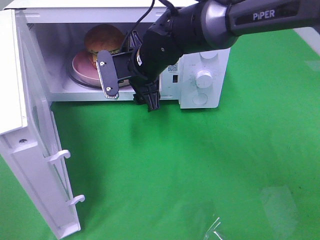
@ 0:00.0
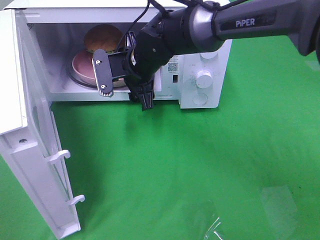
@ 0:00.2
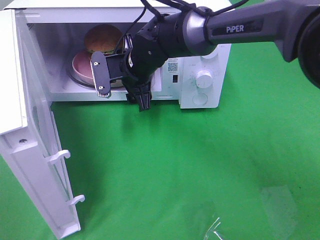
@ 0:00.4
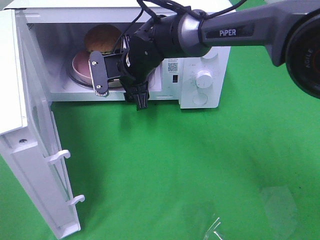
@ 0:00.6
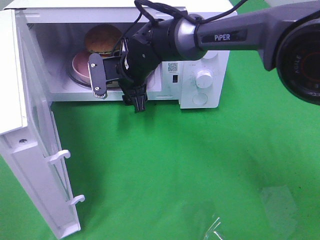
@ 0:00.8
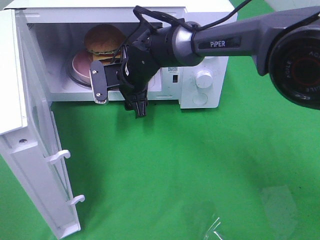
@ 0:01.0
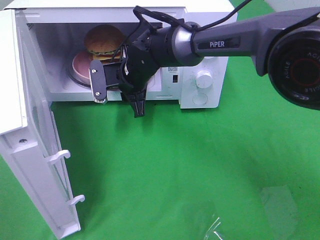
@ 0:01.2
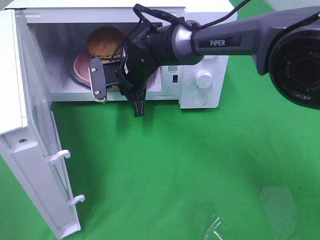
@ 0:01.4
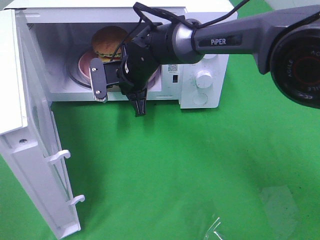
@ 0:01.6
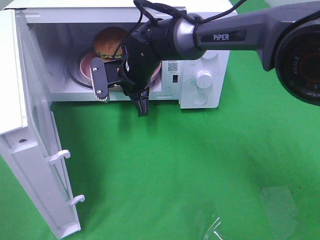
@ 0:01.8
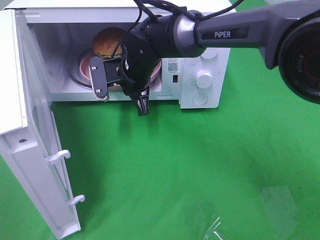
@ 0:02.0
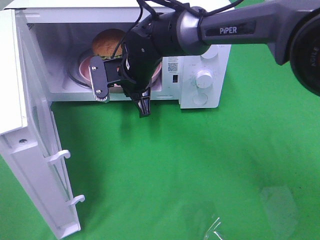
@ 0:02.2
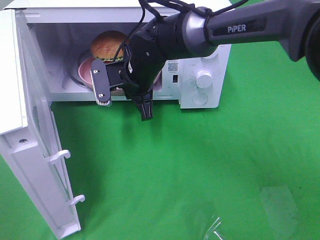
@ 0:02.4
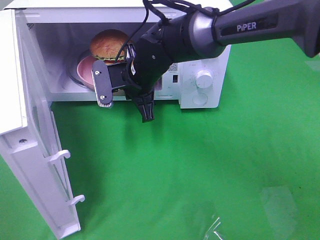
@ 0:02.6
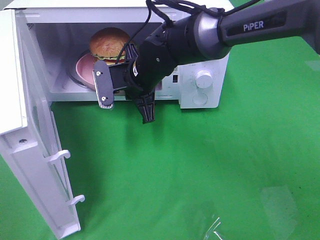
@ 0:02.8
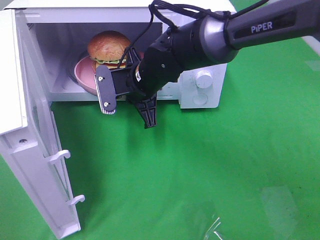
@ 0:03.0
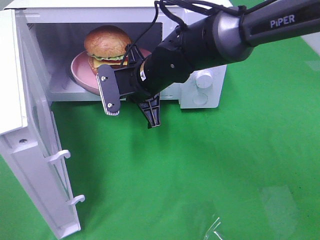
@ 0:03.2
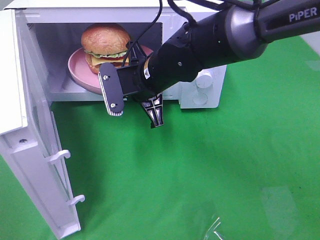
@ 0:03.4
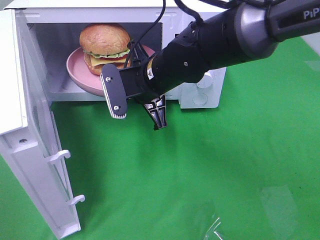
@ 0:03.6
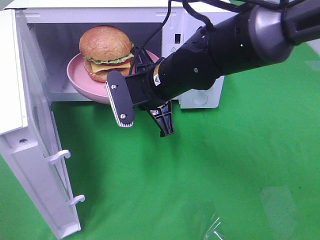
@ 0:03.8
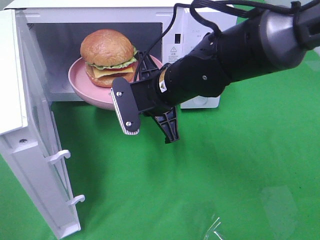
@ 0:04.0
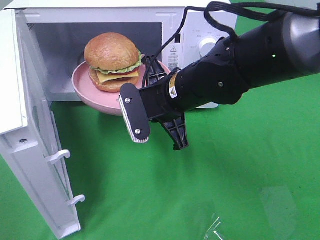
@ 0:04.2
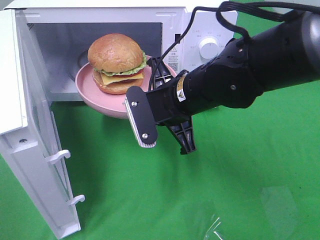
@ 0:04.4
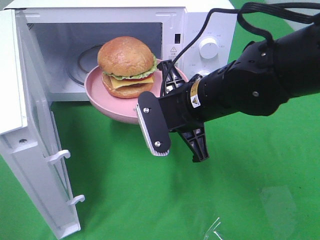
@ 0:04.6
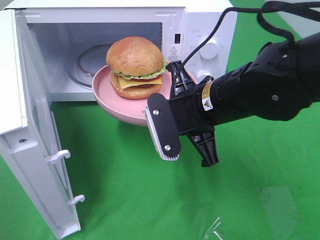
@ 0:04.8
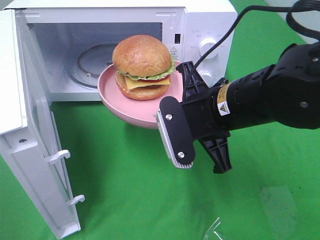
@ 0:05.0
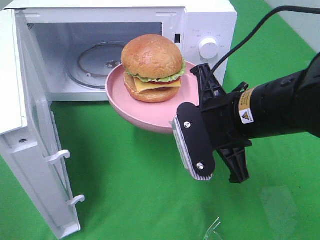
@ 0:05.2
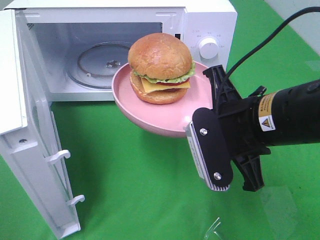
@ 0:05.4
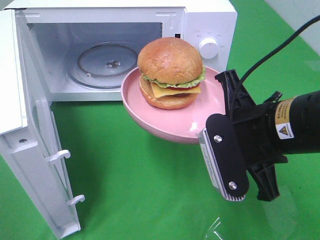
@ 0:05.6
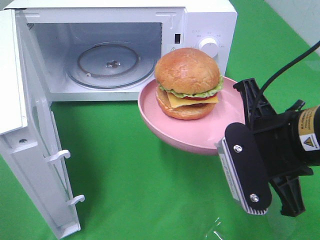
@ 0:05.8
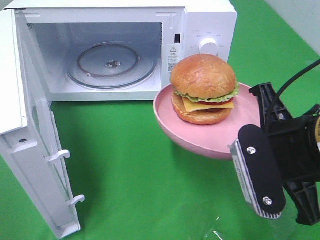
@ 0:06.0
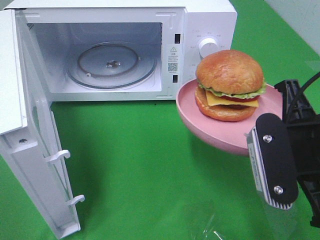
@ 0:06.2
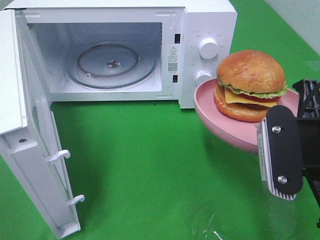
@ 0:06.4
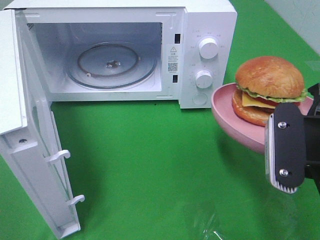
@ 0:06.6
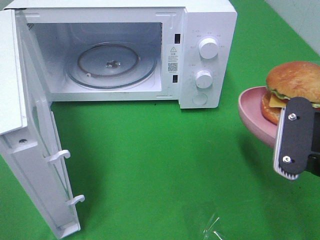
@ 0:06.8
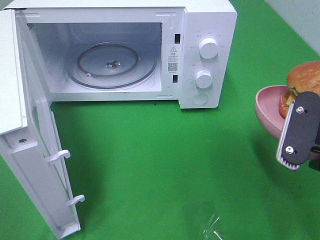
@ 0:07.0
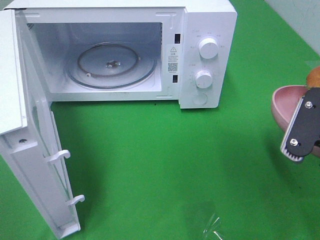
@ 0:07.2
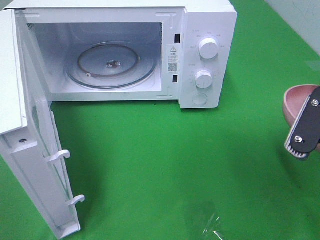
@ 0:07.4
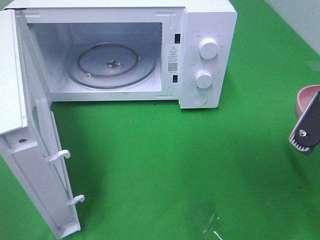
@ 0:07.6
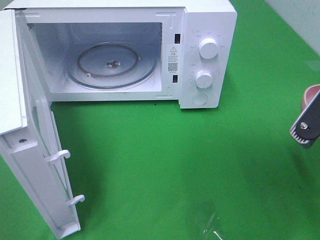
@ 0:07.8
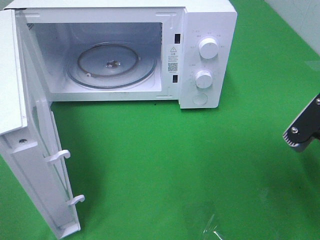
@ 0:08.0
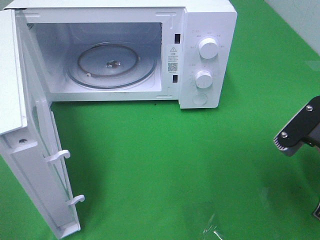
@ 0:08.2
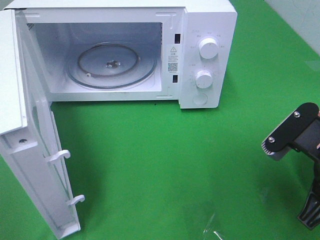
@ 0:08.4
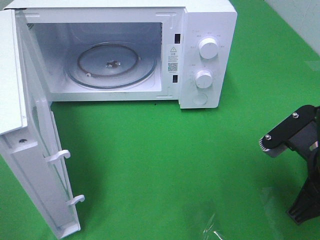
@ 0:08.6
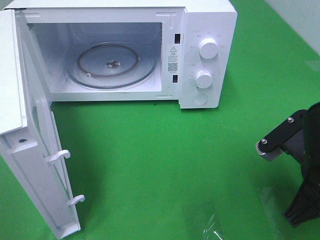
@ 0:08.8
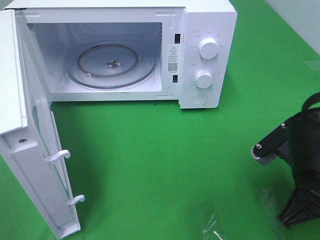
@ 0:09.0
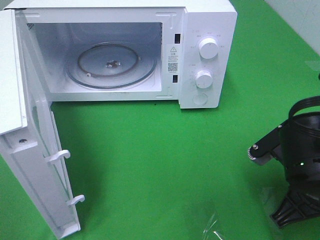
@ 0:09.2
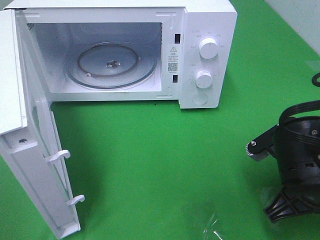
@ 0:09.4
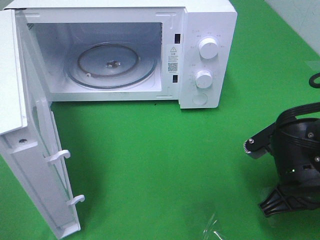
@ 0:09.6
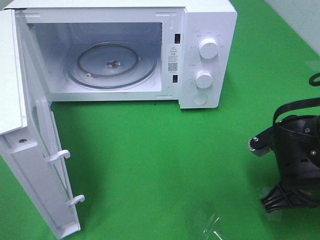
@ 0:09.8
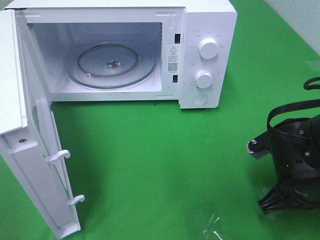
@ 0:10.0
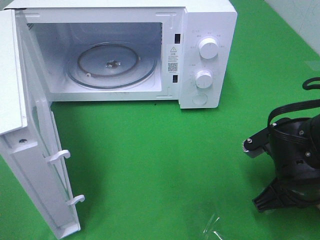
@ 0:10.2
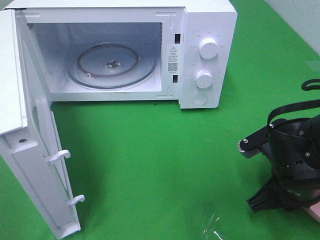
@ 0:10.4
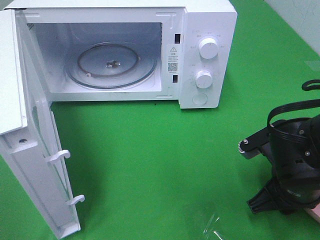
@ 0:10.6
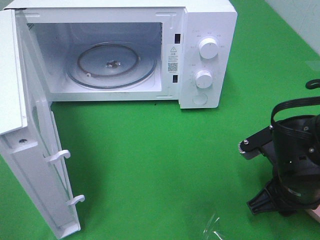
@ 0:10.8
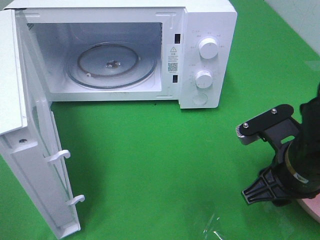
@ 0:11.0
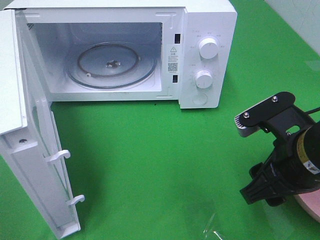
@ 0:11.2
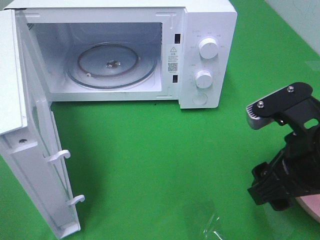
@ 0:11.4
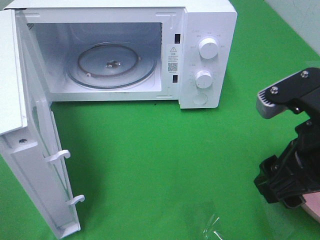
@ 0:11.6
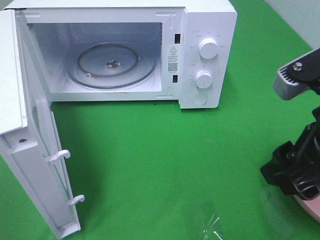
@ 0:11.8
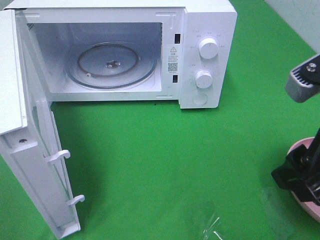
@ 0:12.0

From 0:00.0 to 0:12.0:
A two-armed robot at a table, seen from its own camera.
Task of the whole recording: Heat the burger.
Step, from 0:01.6 to 0:11.0: Right hand: place the plate on the table.
From 0:00.0 to 0:01.6: The right gripper closes up.
From 0:01.6 to 0:03.0: The right gripper moves some 5 cm.
From 0:03.0 to 0:04.4: The right gripper goes about 10 cm backward and to the right.
From 0:04.4 to 0:06.0: The right gripper is displaced backward and to the right by approximately 15 cm.
From 0:06.0 to 0:07.6: The right gripper is displaced to the right by approximately 5 cm.
From 0:07.6 to 0:09.0: The right gripper goes roughly 10 cm downward.
From 0:09.0 to 0:10.4: The grippers move only a little.
From 0:10.4 to 0:12.0: The right gripper heads upward, covering approximately 15 cm, and opens.

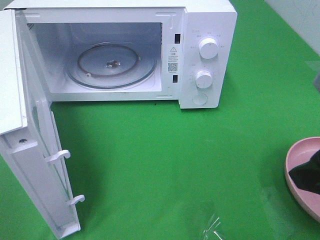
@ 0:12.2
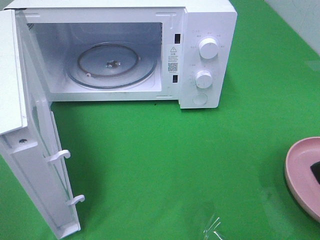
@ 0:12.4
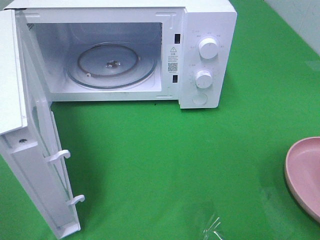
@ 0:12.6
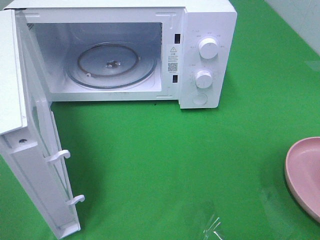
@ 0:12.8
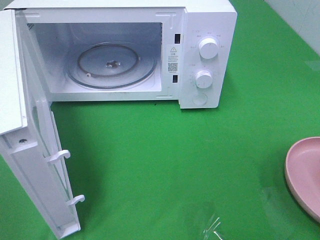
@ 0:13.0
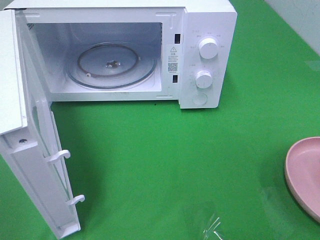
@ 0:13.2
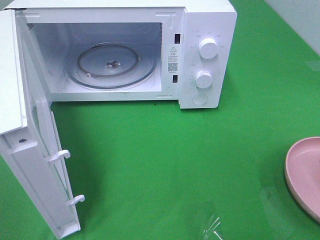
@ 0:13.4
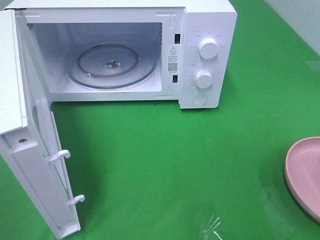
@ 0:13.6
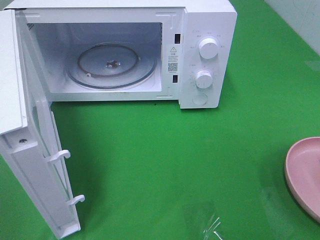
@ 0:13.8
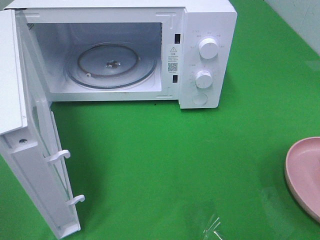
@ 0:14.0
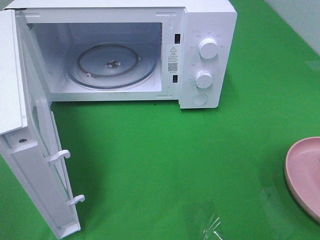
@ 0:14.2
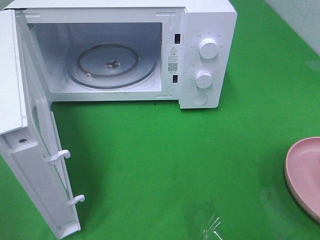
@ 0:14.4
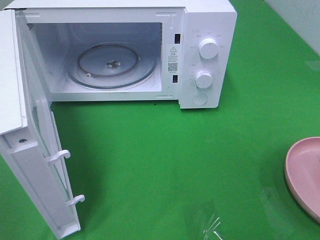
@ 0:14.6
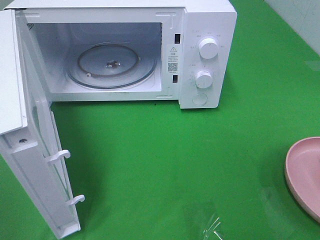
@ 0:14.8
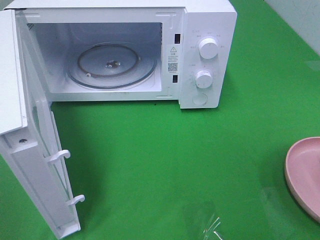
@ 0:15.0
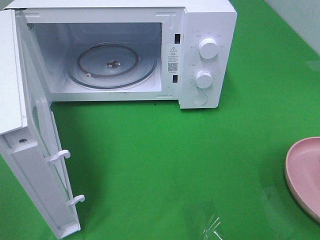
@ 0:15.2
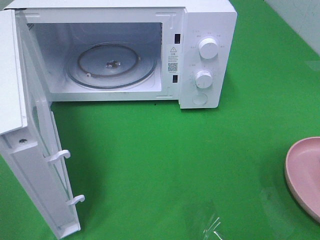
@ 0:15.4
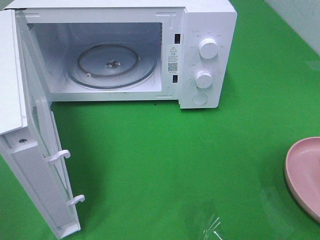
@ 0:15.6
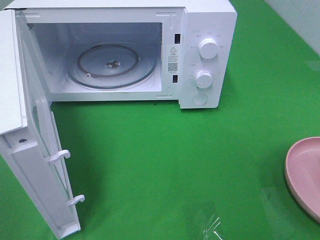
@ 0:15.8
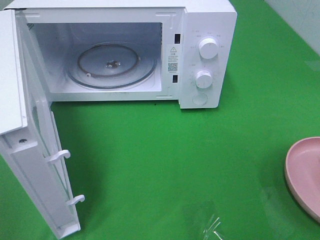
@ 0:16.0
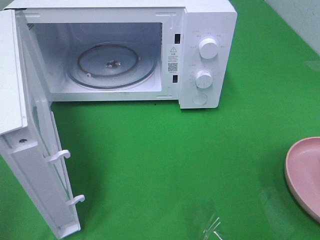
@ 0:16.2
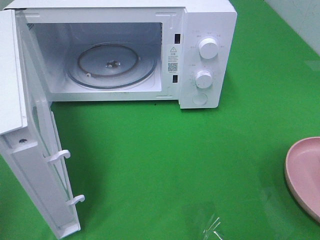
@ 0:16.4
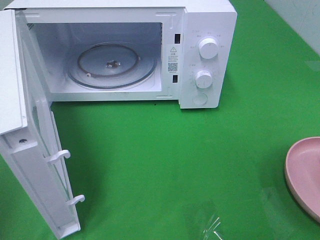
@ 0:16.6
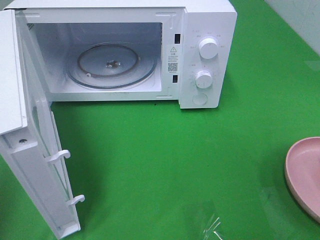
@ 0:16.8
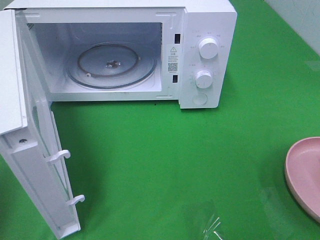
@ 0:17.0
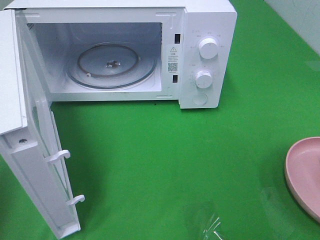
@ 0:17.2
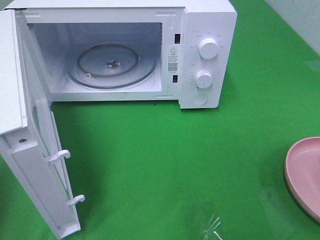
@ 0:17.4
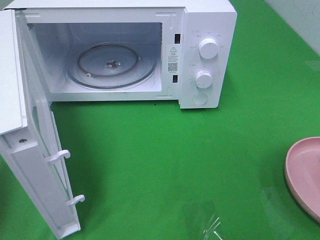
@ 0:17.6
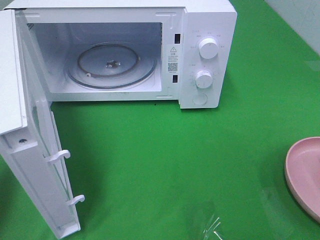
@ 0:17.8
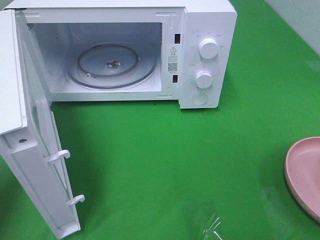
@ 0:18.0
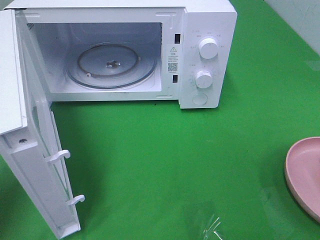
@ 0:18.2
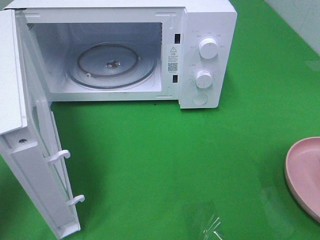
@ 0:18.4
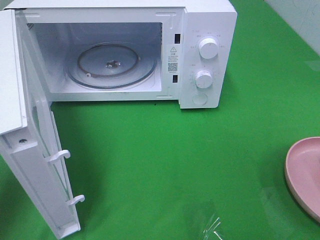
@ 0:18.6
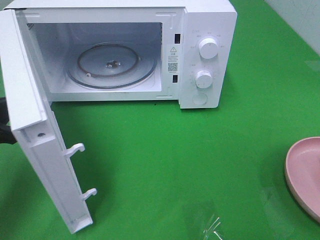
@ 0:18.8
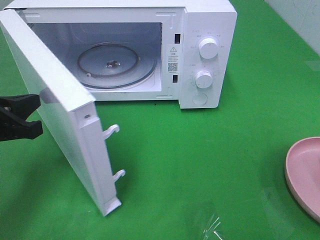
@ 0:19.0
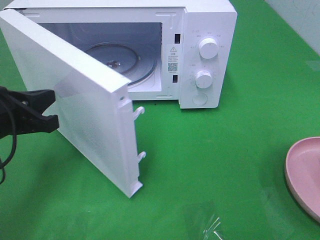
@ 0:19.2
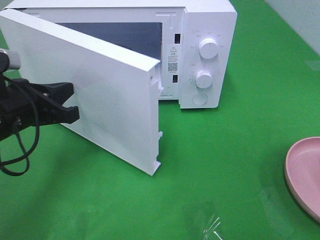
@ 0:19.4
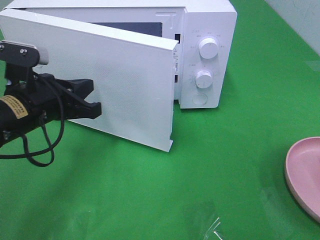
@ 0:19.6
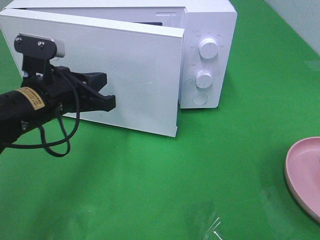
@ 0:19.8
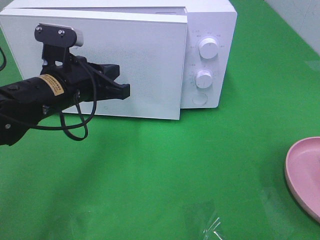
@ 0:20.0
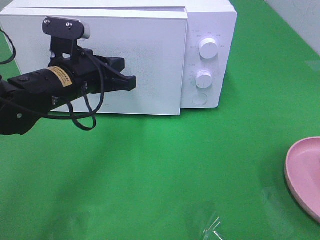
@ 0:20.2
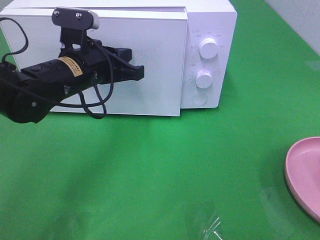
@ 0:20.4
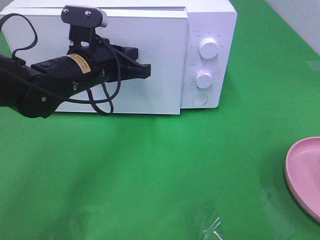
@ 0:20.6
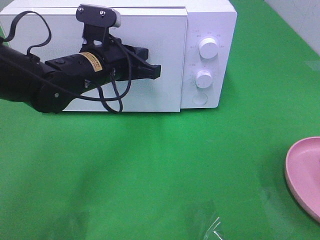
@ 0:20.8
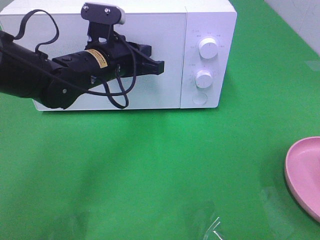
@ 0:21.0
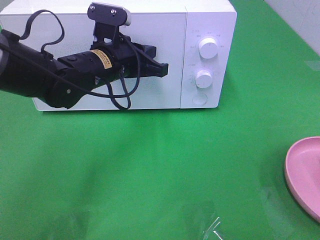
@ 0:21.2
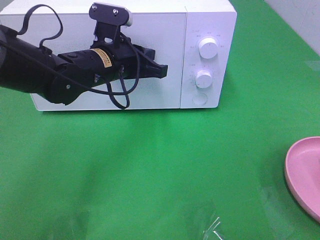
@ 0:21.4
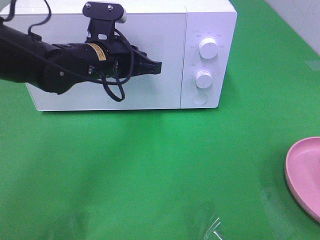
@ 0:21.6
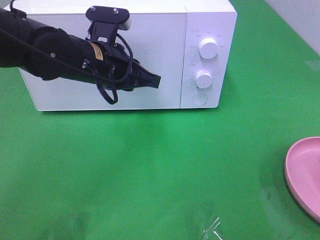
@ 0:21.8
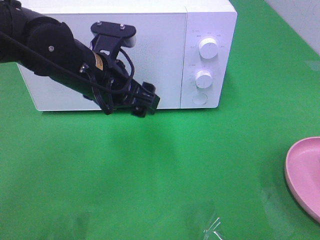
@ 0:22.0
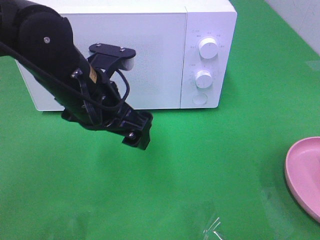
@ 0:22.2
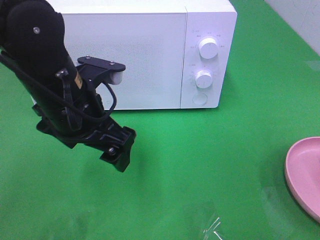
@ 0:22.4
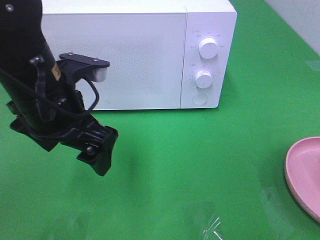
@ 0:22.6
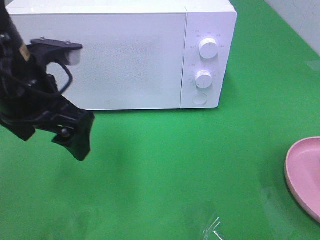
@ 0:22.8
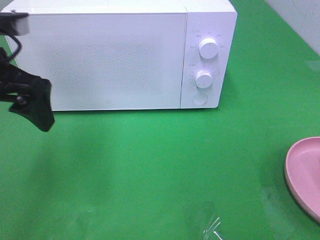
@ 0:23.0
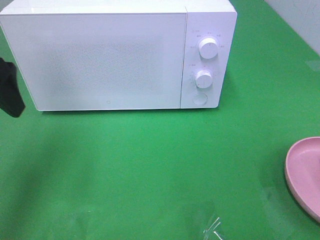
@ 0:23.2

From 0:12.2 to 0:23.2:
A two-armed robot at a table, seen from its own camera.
Task of the whole recording: Heat the burger.
Step, from 0:12.2 to 0:21.8: Left hand: close the microwave door.
From 0:12.2 to 0:13.8: The right gripper moves backward and to the right, roughly 15 cm.
From 0:13.8 to 0:15.4: The two grippers keep their place.
From 0:18.4 to 0:20.0: The left gripper travels to the right and forward by roughly 20 cm.
From 0:20.0 to 0:21.6: The left gripper moves forward and to the right, some 5 cm.
From 0:21.6 to 0:23.2: The left gripper is displaced to the left, upward and backward by some 25 cm, and opens.
